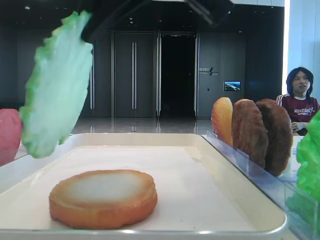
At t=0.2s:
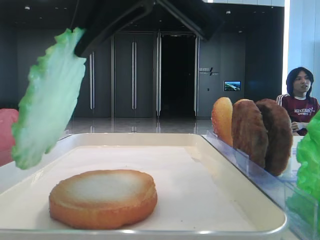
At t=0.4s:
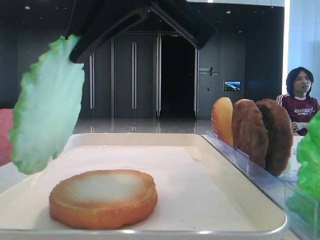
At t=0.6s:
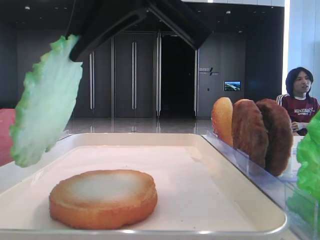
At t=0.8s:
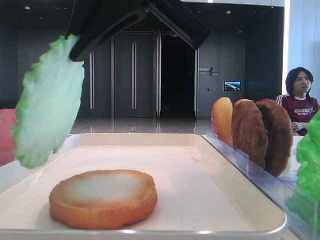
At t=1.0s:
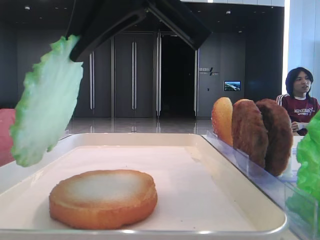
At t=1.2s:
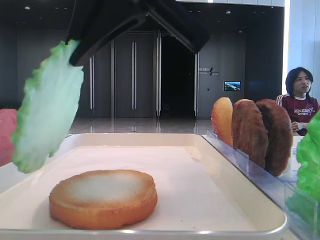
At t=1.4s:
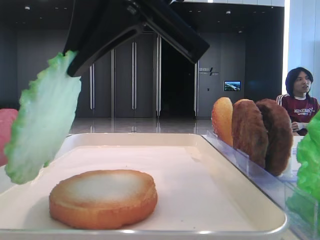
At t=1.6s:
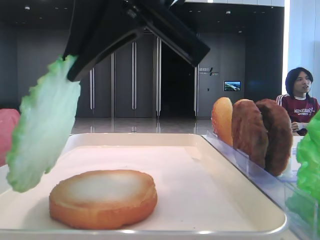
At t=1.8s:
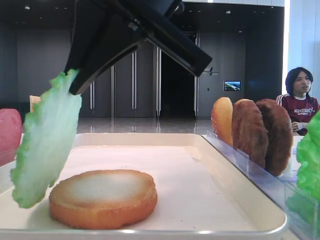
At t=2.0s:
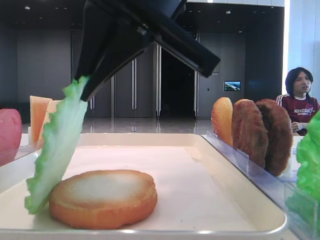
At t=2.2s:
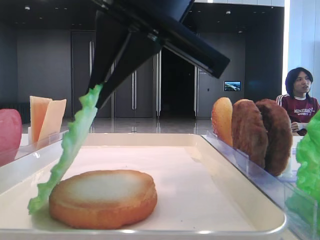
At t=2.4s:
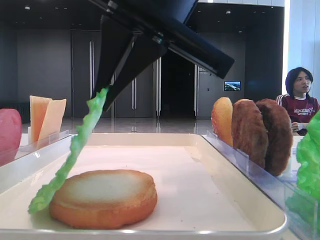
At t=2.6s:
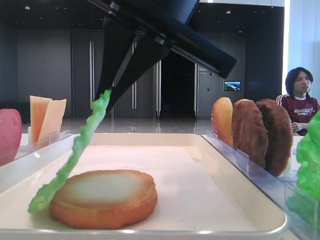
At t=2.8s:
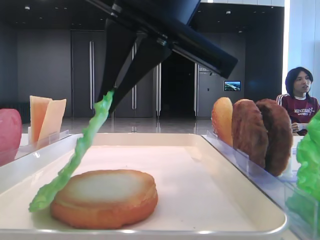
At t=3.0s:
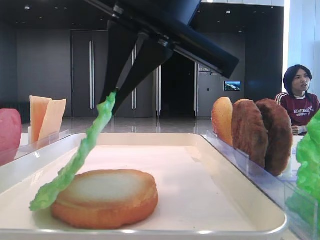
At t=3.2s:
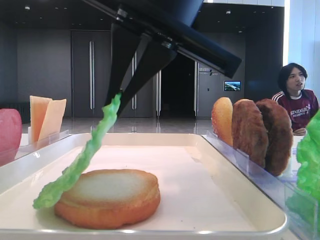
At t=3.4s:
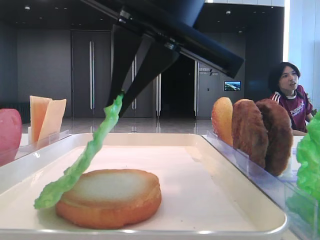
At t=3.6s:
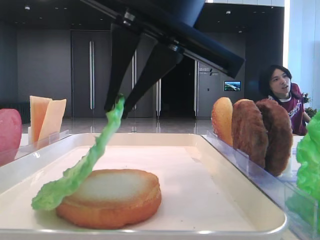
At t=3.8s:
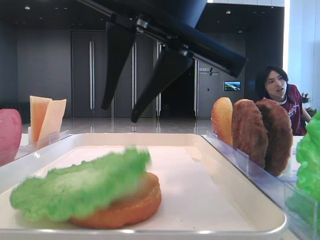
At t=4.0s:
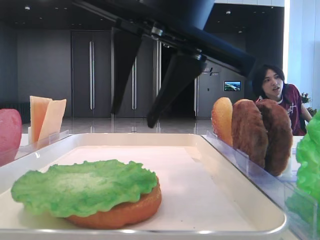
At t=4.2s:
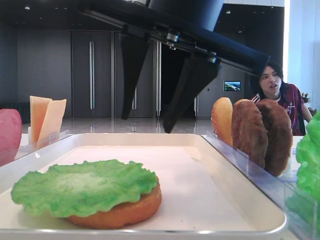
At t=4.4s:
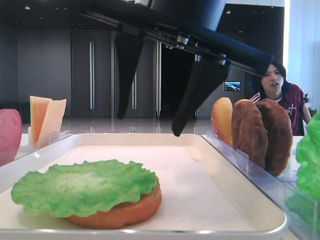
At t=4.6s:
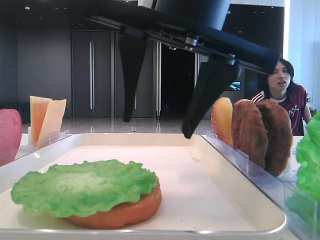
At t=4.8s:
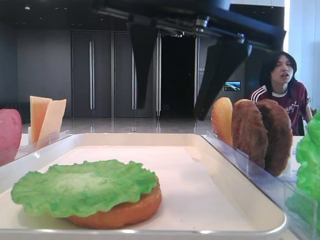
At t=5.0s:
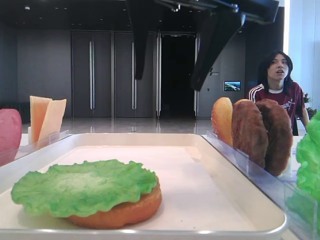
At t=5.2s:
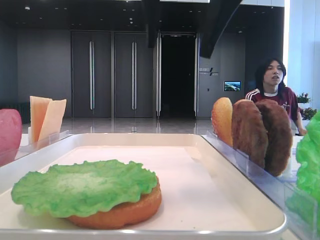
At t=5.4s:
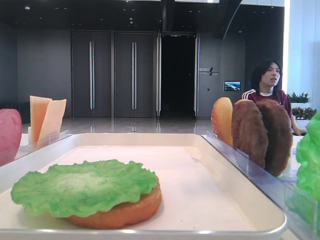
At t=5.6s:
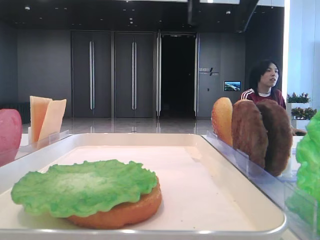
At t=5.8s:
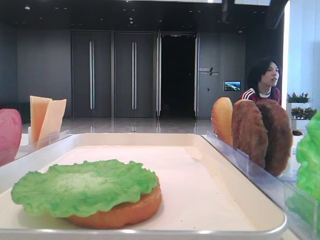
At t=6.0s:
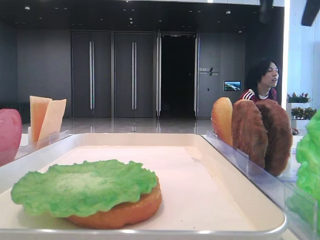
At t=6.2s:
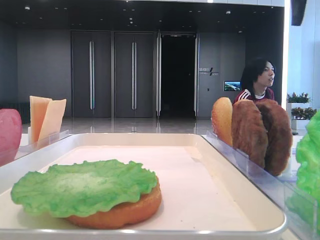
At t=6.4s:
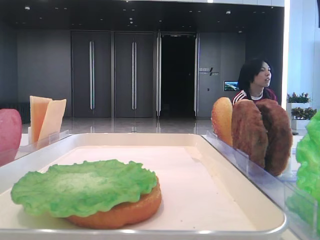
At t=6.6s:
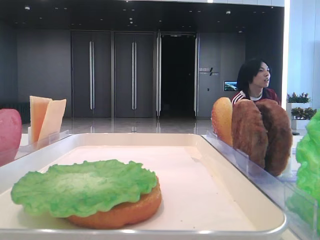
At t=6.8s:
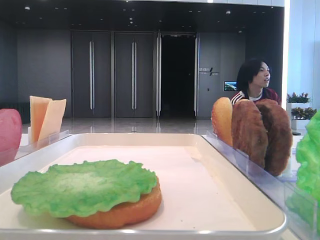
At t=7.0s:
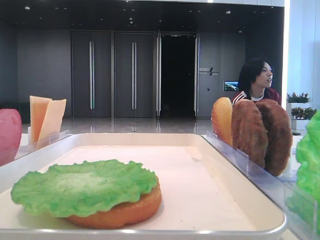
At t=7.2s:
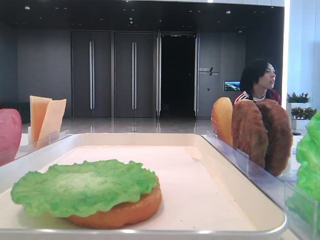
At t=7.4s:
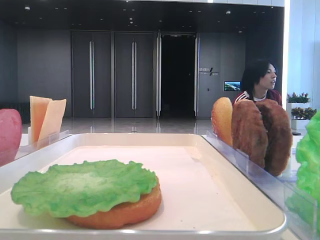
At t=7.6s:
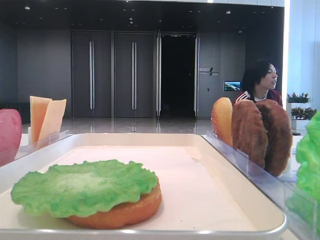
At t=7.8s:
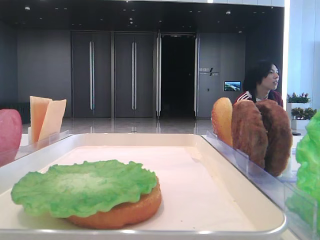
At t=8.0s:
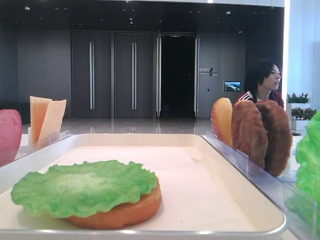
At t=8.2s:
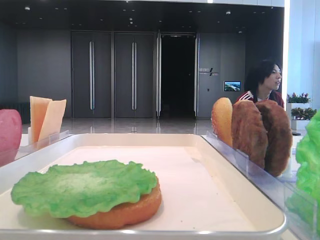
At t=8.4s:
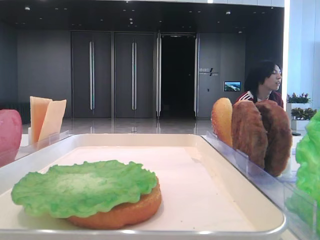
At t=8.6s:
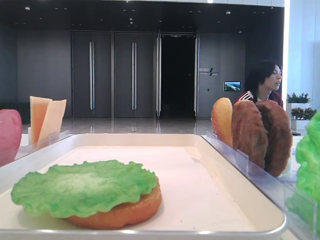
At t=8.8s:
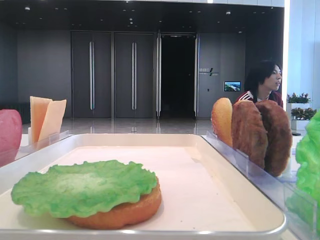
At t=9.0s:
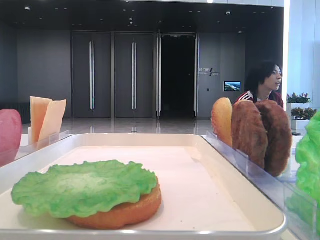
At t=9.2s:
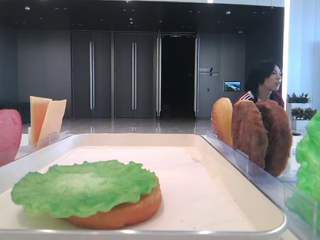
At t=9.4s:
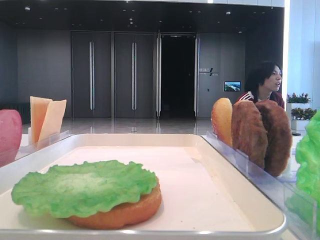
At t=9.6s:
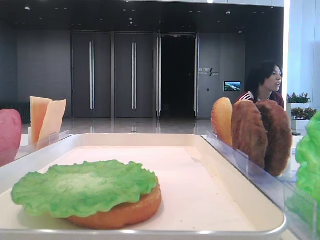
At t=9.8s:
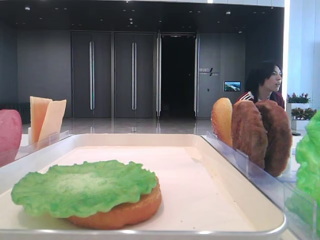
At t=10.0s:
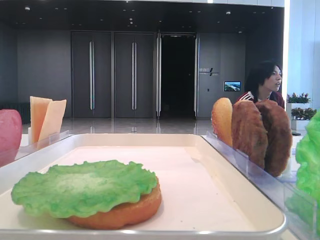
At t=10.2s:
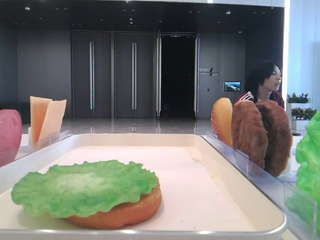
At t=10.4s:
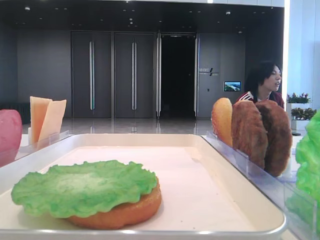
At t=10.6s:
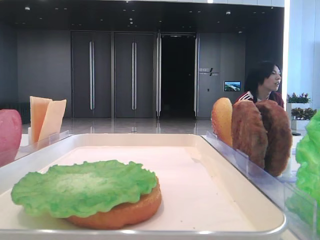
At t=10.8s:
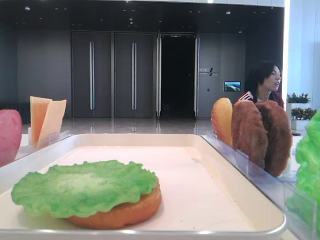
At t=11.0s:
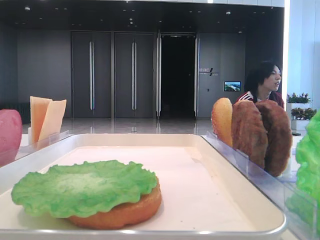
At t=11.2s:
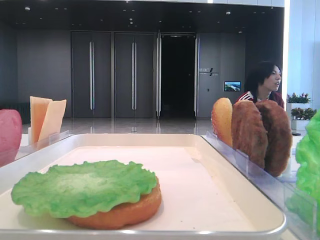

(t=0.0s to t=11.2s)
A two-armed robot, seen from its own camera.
Step, t=0.0s - t=3.8s: Place the lettuce leaf on the bottom bread with the right hand.
t=0.0s - t=3.2s: The grippers stay close to where they were, moving slightly.
t=3.2s - t=4.8s: The right gripper opens its fingers.
t=4.8s - t=6.4s: The right gripper goes roughly 25 cm to the right, upward and forward.
t=6.4s - t=8.0s: The right gripper is displaced backward by approximately 20 cm.

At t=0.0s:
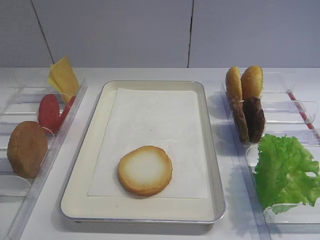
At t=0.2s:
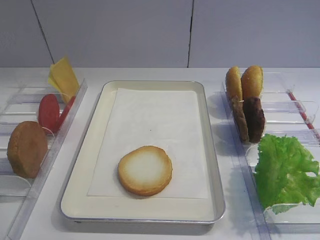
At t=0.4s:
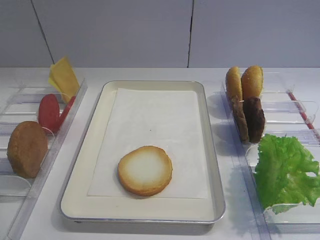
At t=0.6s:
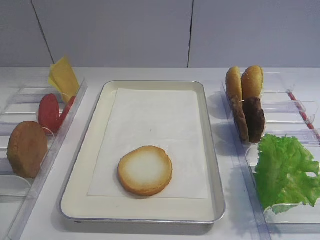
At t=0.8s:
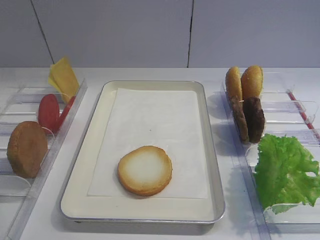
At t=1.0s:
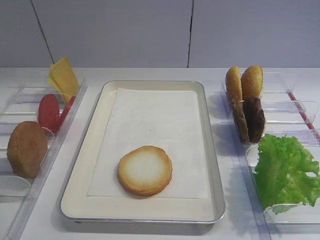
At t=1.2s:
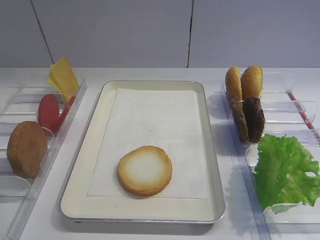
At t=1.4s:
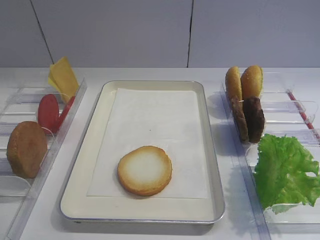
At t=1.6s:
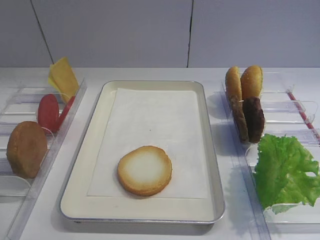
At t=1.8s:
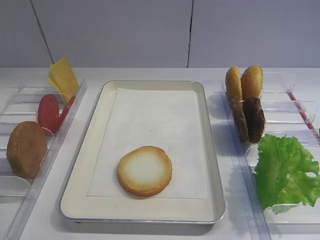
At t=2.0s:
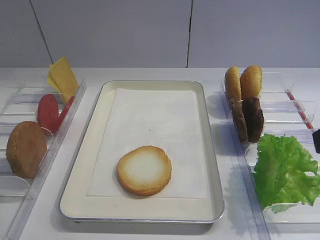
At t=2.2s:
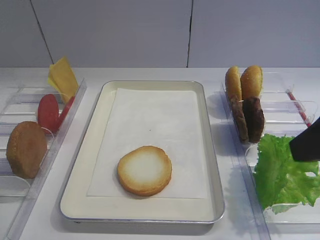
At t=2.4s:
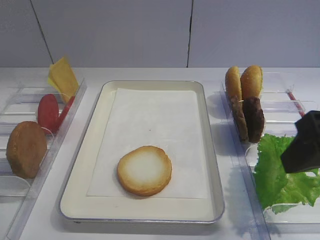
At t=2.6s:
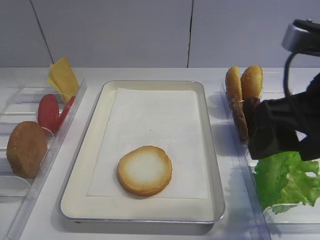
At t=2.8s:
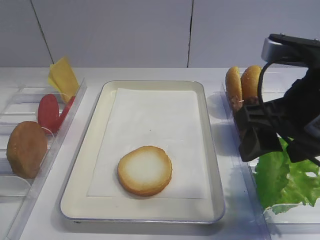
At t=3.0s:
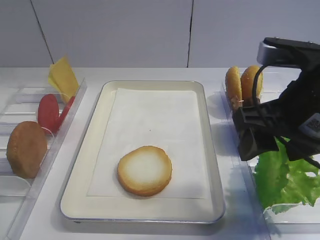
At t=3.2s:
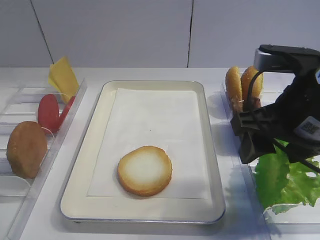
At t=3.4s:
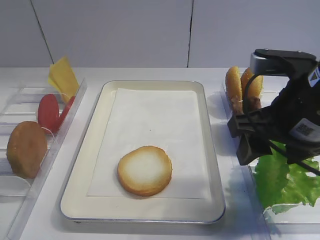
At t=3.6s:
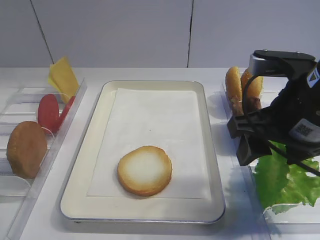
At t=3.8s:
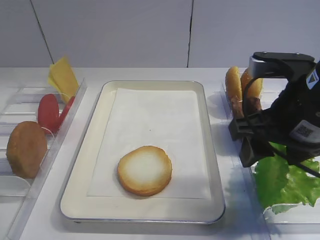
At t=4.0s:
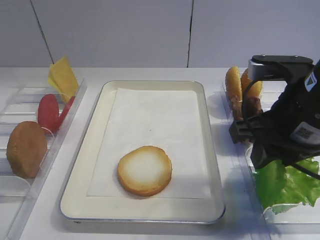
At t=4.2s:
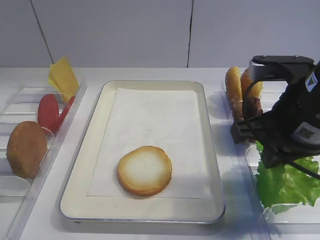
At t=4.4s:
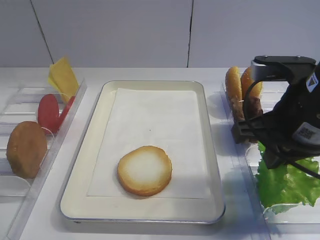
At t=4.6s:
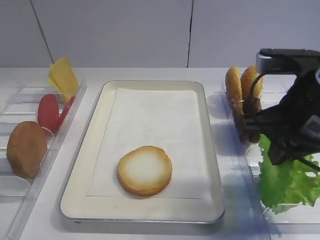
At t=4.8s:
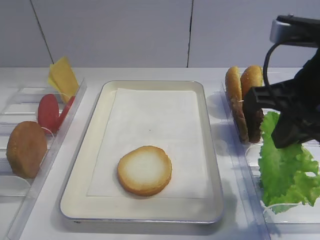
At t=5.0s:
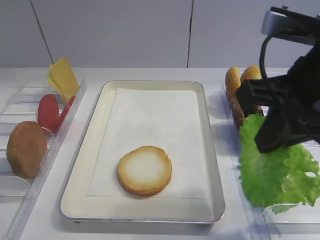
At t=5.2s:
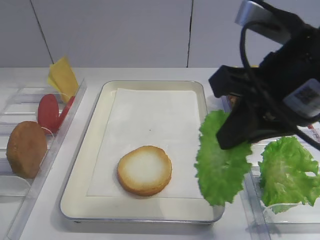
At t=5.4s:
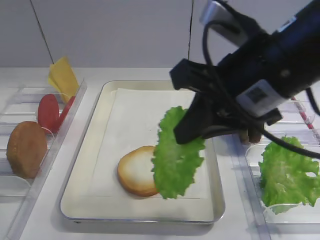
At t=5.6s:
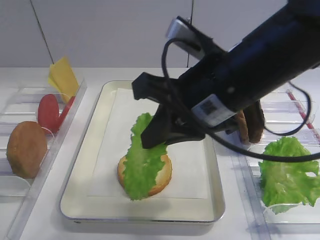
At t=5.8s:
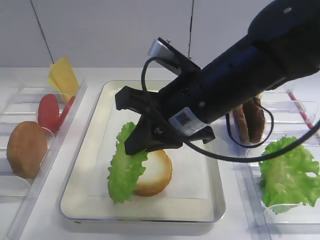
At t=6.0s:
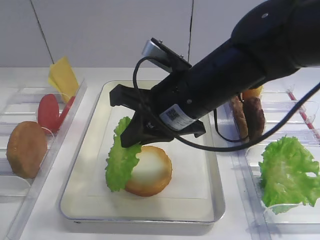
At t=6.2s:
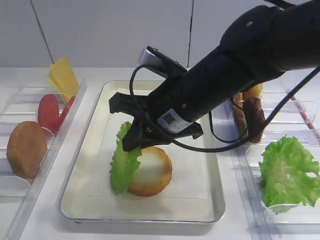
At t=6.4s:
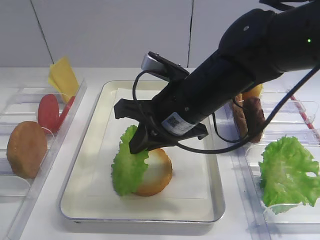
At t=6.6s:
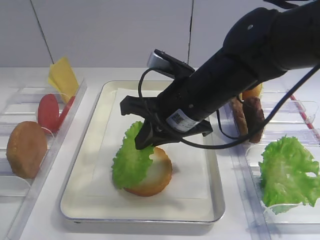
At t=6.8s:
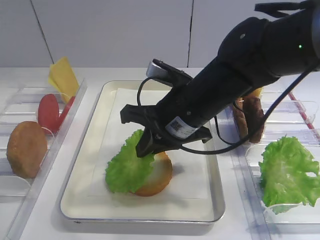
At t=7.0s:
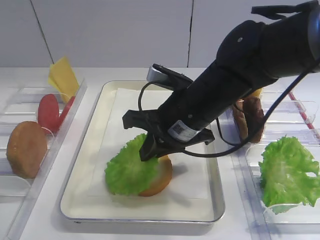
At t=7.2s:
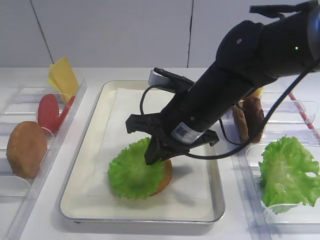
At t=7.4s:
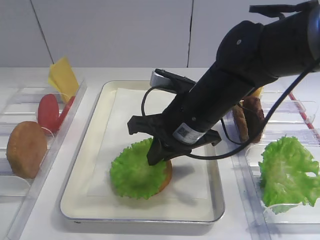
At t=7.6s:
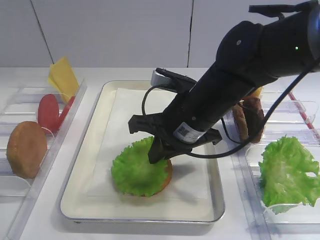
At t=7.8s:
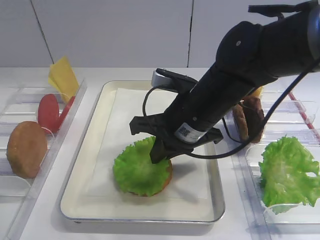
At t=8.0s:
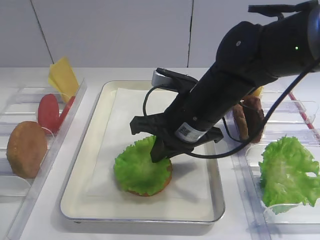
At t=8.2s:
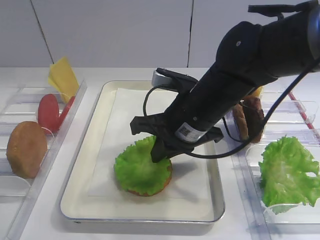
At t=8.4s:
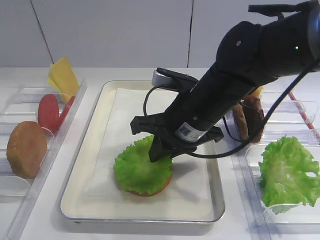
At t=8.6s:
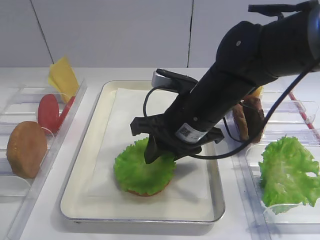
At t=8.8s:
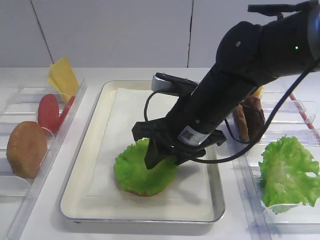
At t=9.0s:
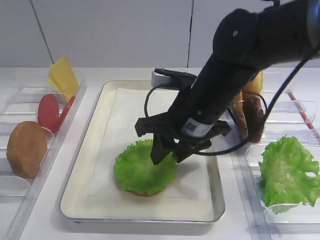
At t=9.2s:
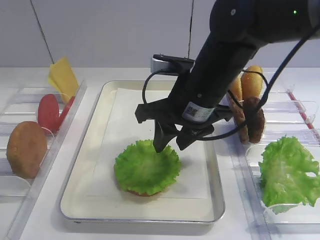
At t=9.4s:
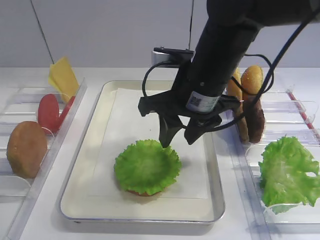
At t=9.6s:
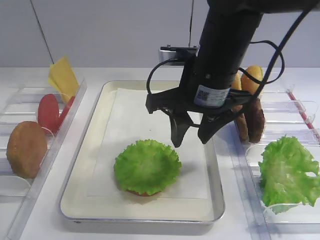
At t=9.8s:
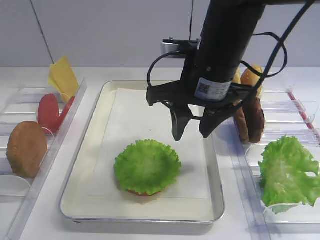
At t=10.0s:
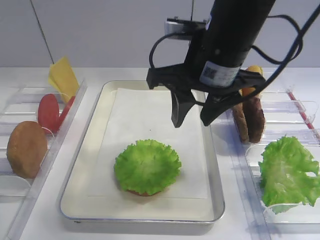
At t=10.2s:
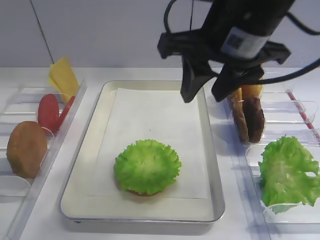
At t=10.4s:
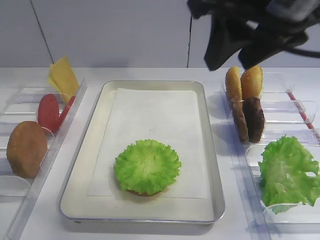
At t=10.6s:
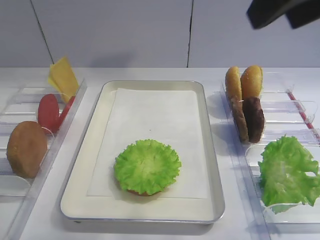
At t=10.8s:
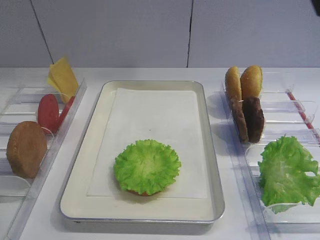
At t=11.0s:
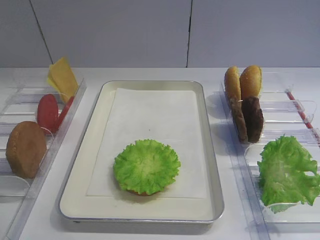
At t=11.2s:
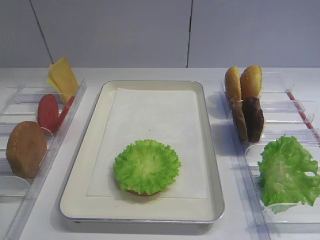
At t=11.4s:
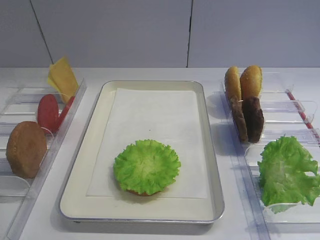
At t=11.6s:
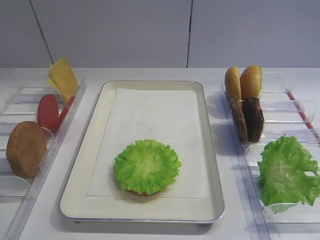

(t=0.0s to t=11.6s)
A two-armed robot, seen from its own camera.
Step, t=0.0s - t=4.6s: Pick up the lettuce leaf with the right gripper.
Step, t=5.0s - t=9.2s: Place the lettuce leaf on the bread slice with the right gripper.
t=1.4s - t=2.8s: The right gripper travels forward and to the left by some 15 cm.
t=2.8s - t=4.4s: The right gripper closes.
t=4.4s - t=5.8s: The right gripper moves to the left, about 10 cm.
t=5.8s - t=7.2s: The right gripper is displaced downward by approximately 5 cm.
t=7.2s - t=8.8s: The right gripper opens up.
t=8.8s - t=10.2s: The right gripper shifts about 15 cm upward.
t=10.2s - t=11.6s: The right gripper is displaced backward and to the right by approximately 30 cm.
